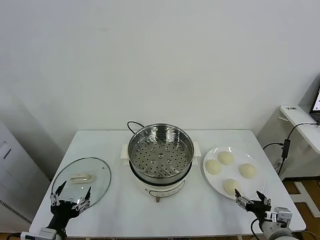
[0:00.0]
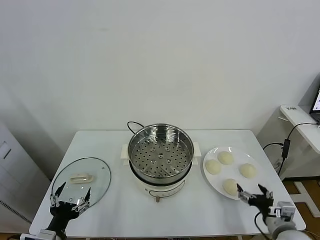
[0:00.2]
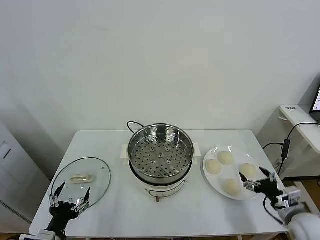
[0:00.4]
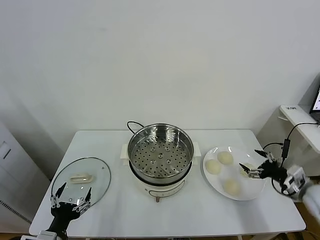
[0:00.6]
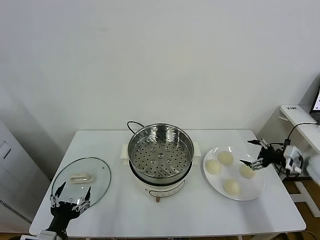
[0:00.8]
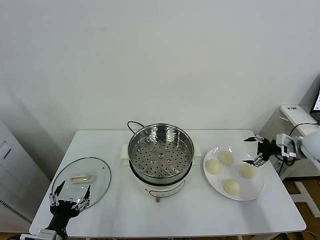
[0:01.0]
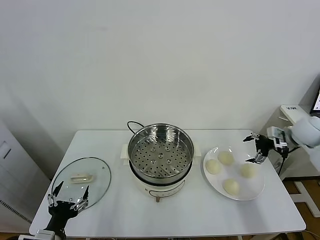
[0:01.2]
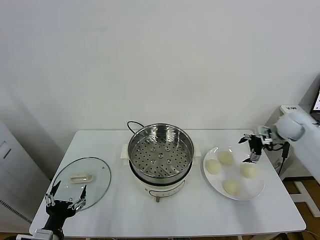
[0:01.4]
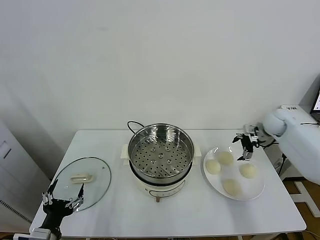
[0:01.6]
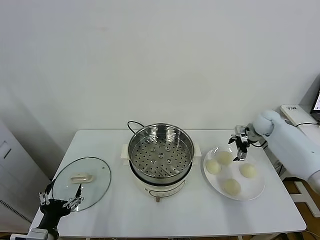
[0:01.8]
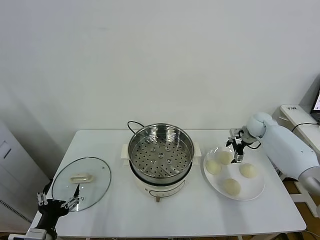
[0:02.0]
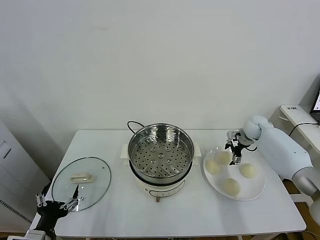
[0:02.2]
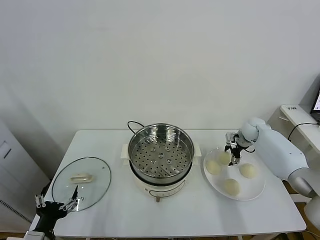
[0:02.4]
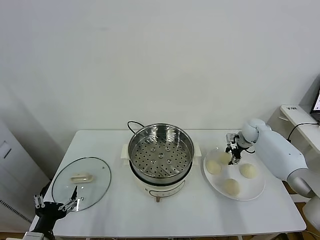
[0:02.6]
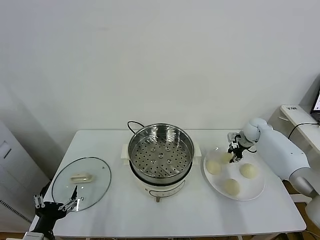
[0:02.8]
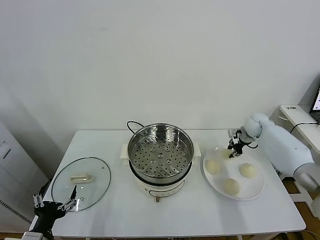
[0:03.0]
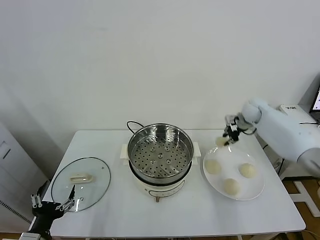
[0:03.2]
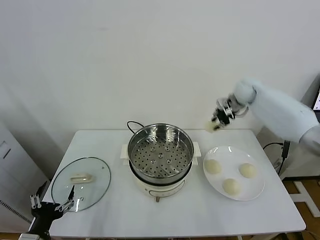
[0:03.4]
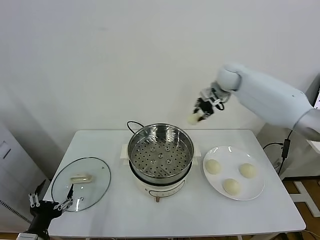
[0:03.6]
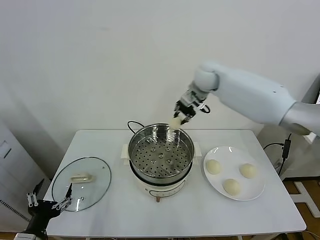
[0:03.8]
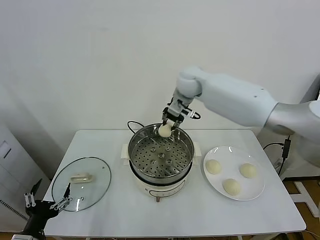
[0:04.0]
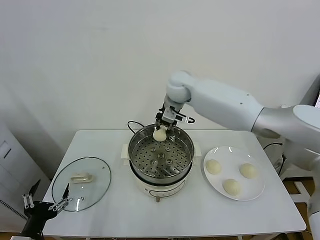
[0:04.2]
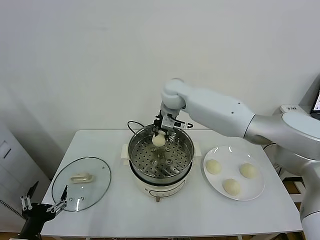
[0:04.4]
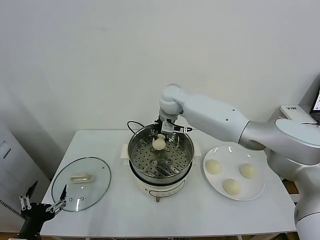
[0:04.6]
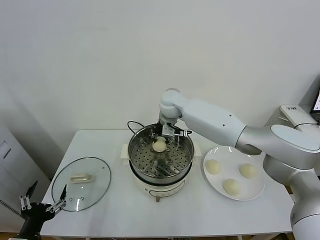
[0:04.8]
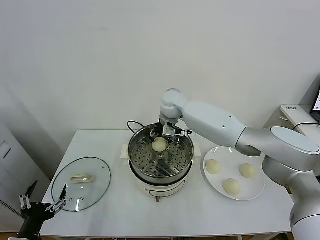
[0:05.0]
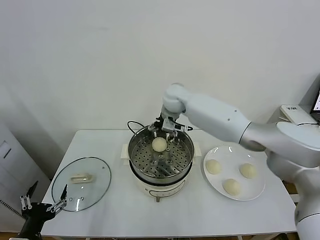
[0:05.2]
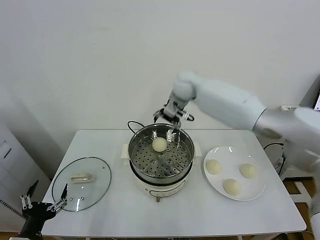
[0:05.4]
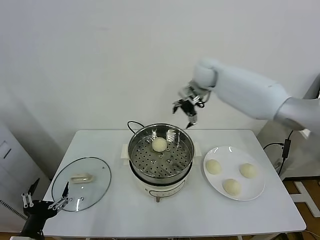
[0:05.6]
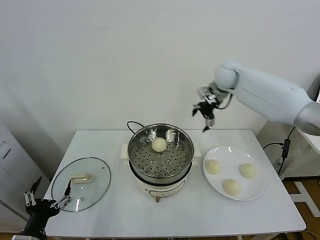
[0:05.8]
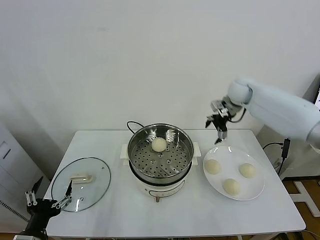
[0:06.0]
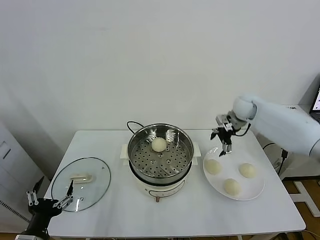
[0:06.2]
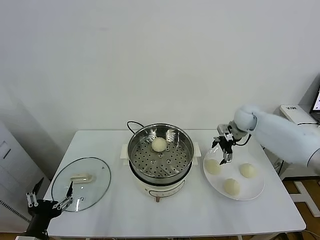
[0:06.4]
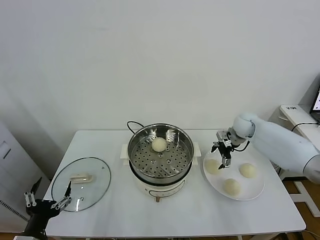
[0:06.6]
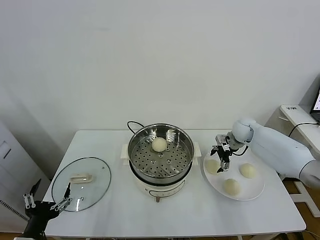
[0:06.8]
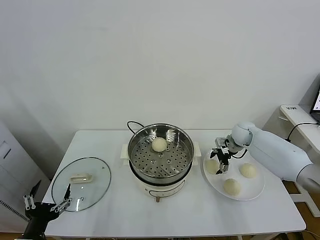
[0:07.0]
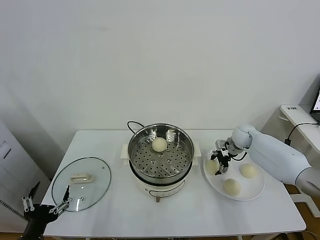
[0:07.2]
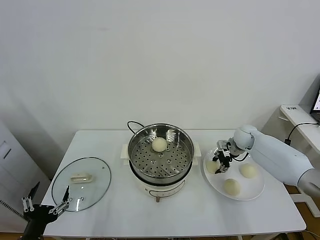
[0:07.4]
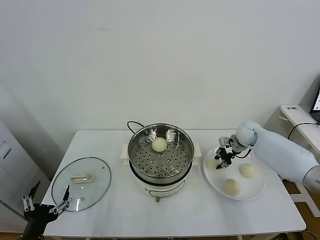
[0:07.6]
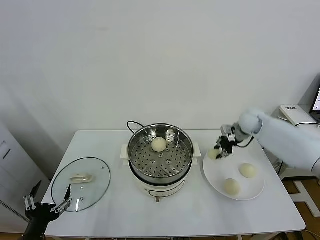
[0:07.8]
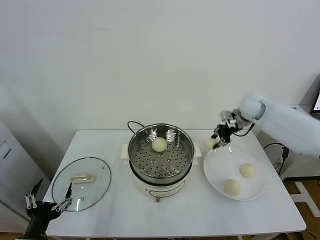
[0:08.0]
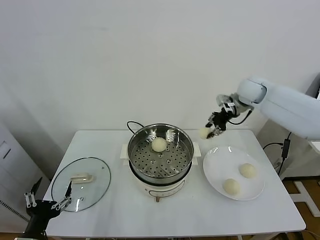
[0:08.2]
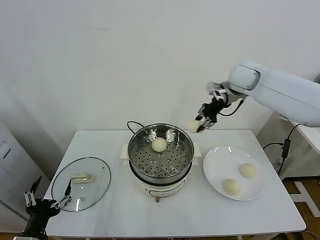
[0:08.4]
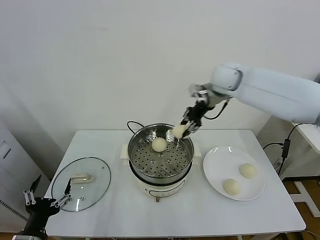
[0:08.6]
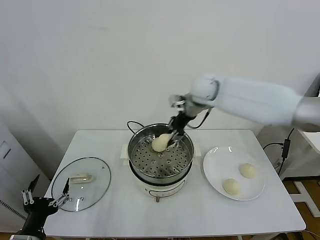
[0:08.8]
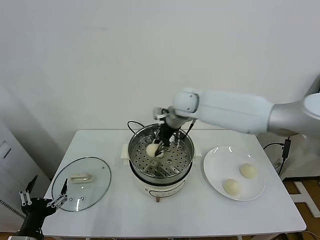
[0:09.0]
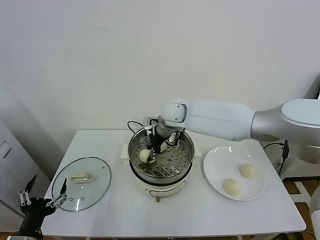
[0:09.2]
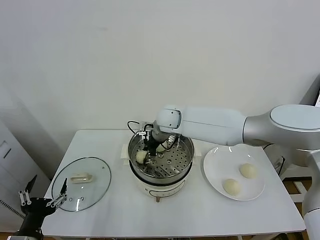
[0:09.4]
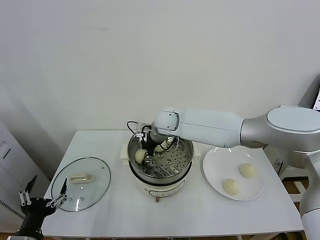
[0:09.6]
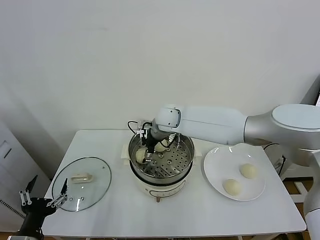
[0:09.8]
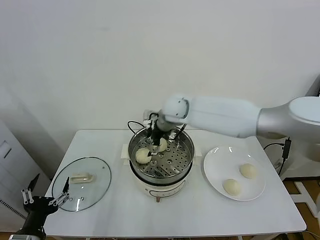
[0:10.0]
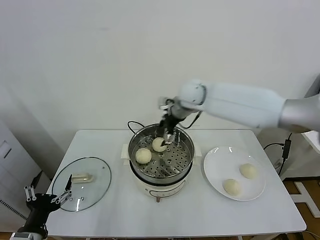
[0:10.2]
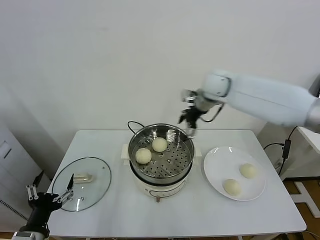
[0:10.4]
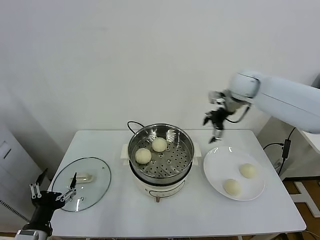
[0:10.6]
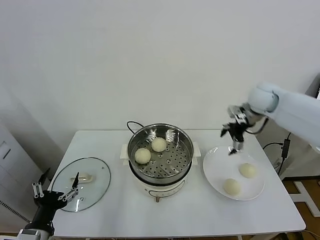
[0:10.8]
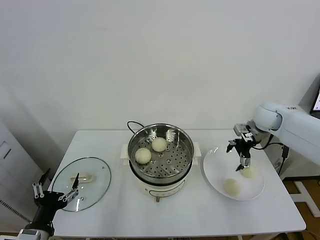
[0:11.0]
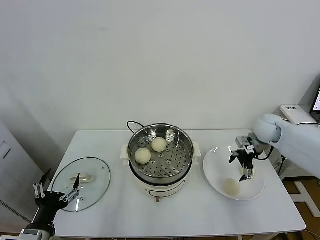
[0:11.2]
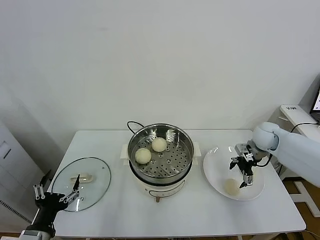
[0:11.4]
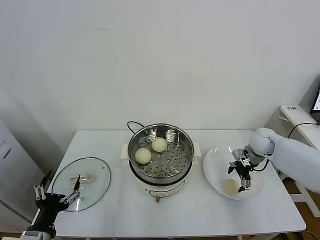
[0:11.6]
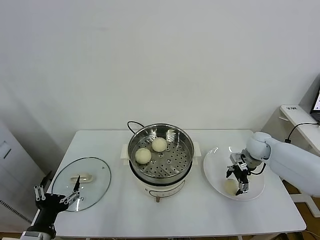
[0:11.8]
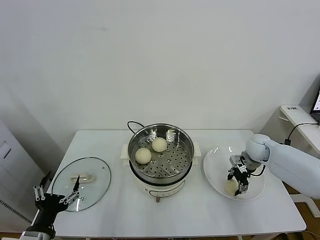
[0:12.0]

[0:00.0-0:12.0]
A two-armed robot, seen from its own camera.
Task of the whole recording: take steamed baozi put them in steamer.
Step, 0:00.0 to 0:02.6: Grasp the baozi in the plate with right gripper.
Step, 0:02.8 to 0:05.0: Place the baozi on the steamer with right gripper.
Step, 0:05.2 to 0:07.2: Grasp the baozi in the plate with right gripper.
Step, 0:07.4 to 0:09.8: Place the baozi on the steamer with right gripper.
Step, 0:10.0 to 0:12.0: Grasp the baozi in the plate with right gripper.
0:01.6 to 0:03.0: The right gripper moves some 5 cm, and closes up.
0:03.0 to 0:04.4: The right gripper moves to the left and upward, about 40 cm.
0:04.4 to 0:06.0: The right gripper travels to the right by approximately 25 cm, and opens its fingers.
0:06.0 to 0:07.6: The right gripper shifts about 20 cm downward, and closes.
0:07.6 to 0:09.0: The right gripper heads to the left and upward, covering about 30 cm.
0:09.0 to 0:10.4: The right gripper is displaced to the right and upward by some 10 cm, and opens.
0:10.4 to 0:12.0: The right gripper moves downward and to the right, roughly 30 cm.

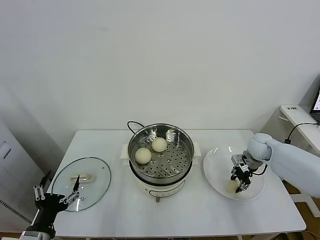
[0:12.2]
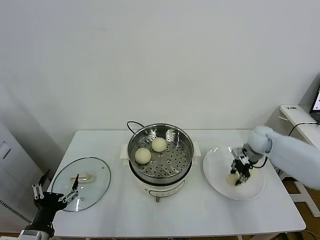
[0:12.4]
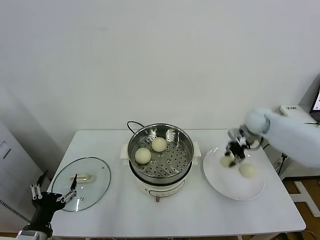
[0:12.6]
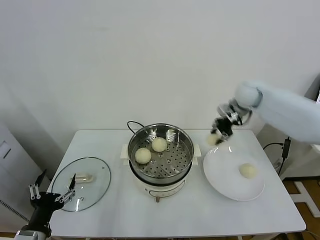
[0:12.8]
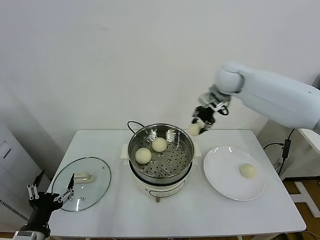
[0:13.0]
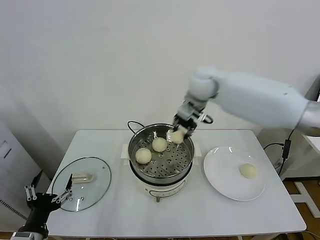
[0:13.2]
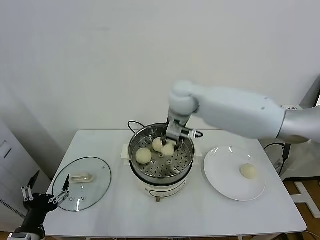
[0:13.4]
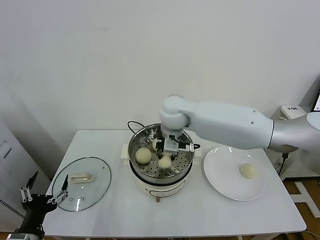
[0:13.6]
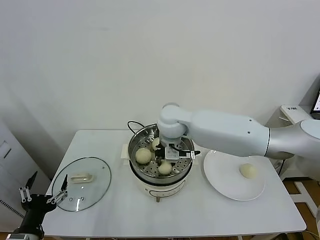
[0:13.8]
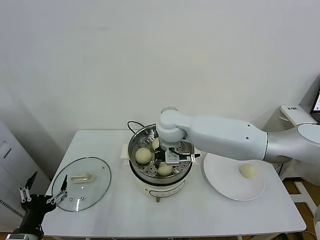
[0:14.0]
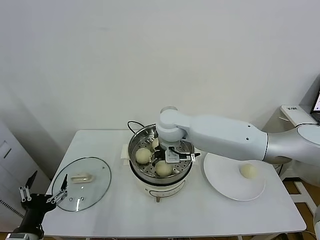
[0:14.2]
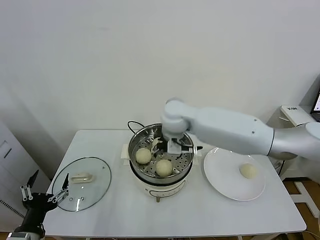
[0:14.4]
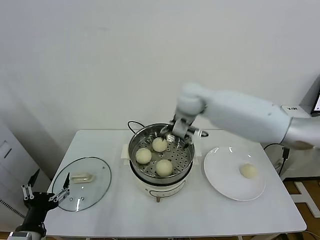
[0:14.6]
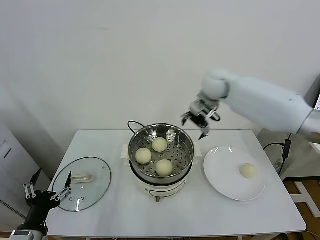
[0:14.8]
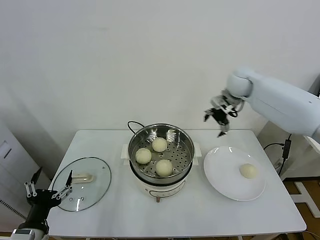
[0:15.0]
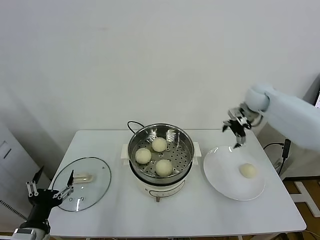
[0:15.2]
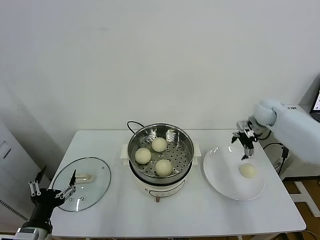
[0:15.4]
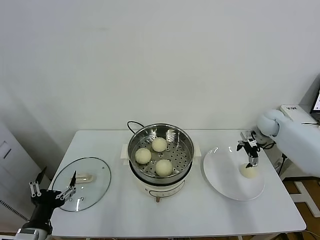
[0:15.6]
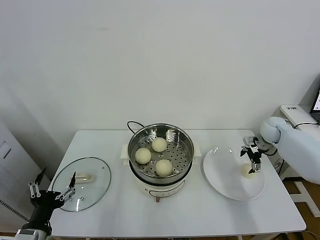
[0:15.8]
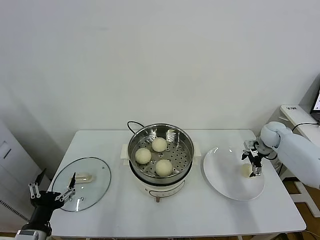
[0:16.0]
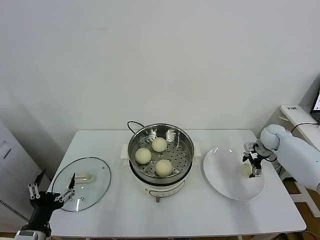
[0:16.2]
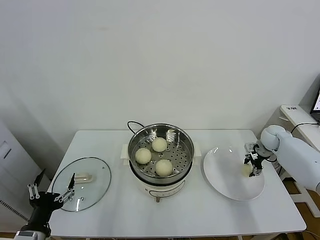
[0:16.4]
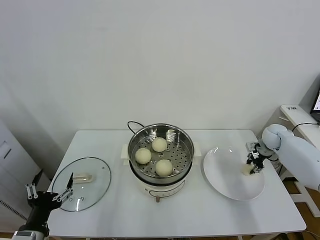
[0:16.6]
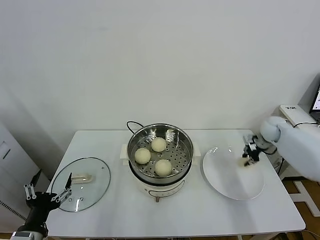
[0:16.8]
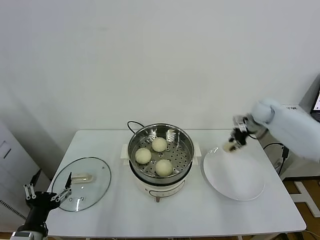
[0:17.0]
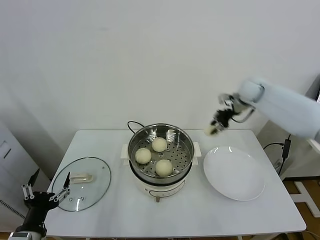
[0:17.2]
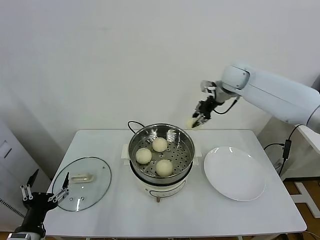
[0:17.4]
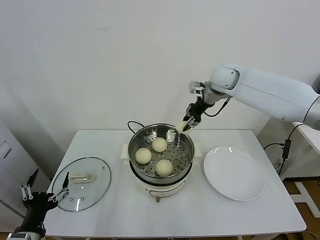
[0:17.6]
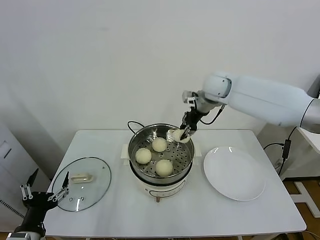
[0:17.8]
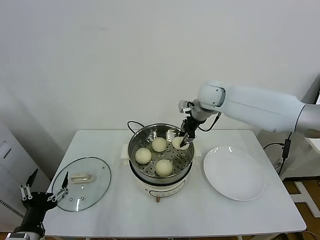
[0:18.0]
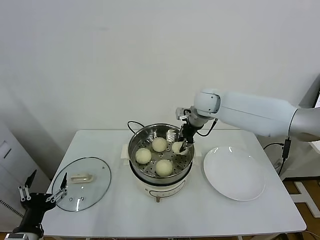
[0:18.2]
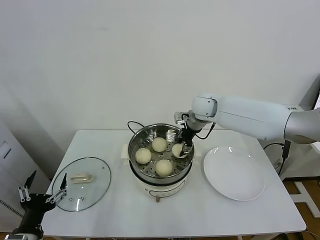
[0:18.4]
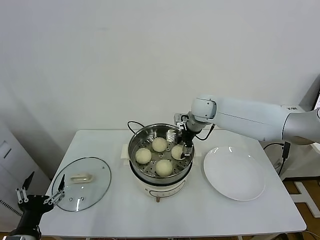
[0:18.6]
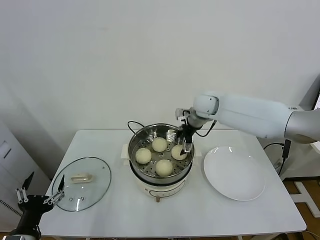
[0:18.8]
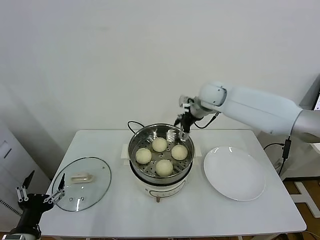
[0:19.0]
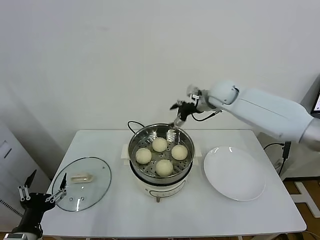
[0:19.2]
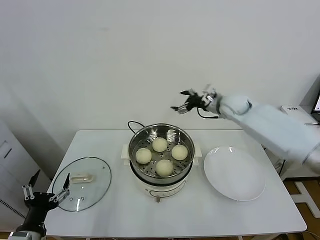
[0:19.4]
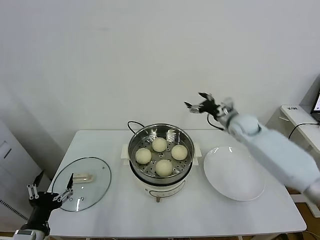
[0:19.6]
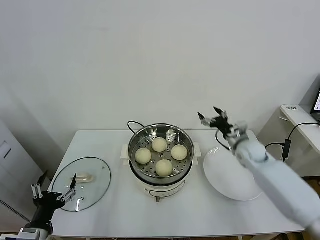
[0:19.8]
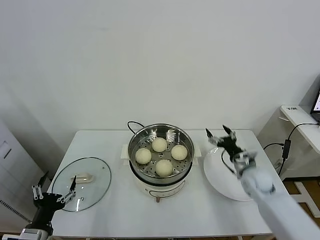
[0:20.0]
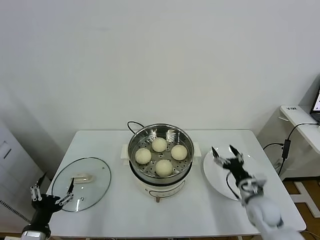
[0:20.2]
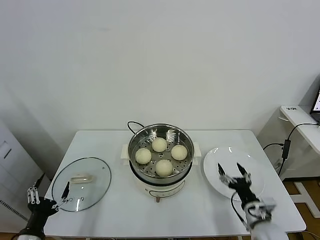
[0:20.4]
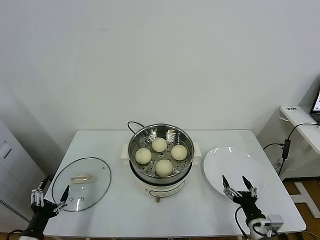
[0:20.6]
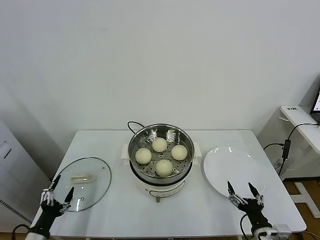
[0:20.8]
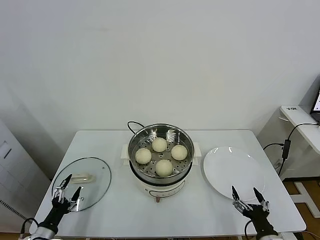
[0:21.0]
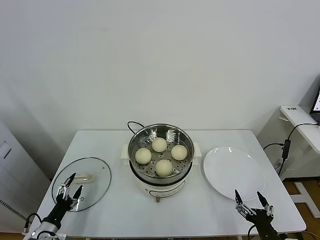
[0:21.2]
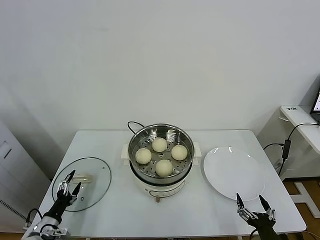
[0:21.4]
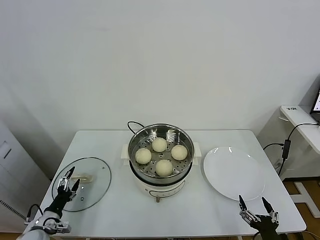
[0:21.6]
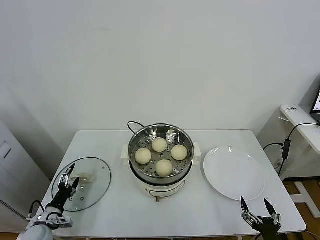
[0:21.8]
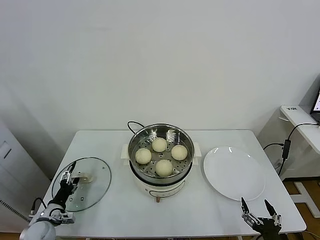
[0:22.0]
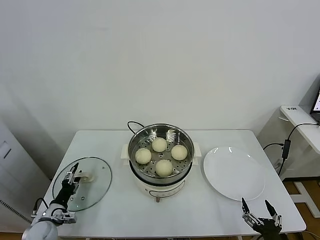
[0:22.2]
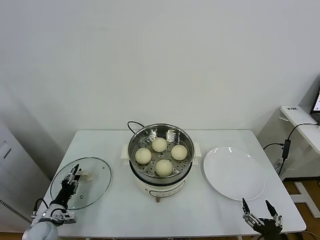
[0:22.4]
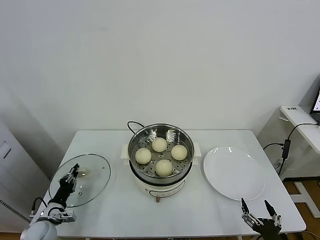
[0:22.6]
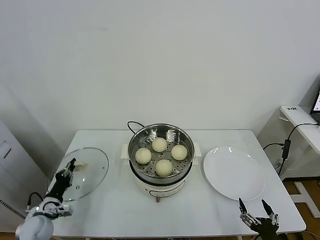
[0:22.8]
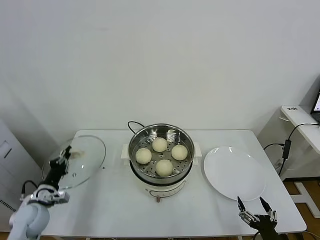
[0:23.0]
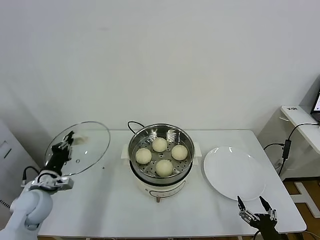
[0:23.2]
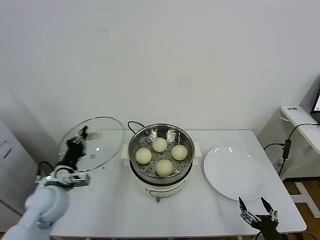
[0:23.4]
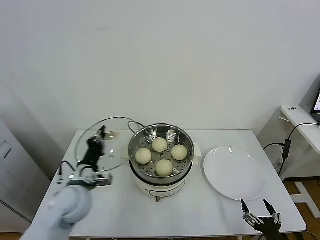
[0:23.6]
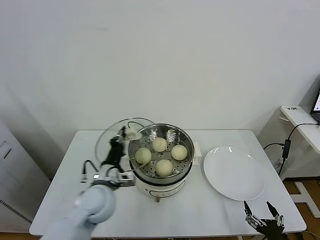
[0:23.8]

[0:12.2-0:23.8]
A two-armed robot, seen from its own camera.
Task of the whole recording: take steamed baozi put them in steamer.
Step, 0:12.2 to 0:14.2: Place the baozi on the steamer with right gripper.
Step, 0:14.4 to 0:16.4: Grasp the baozi in the plate with right gripper.
Step, 0:16.6 to 0:18.6: Place the baozi on the steamer with right gripper.
Step, 0:19.0 to 0:22.8: Grasp the pot lid with left gripper.
0:12.2 to 0:13.6: The right gripper is displaced to the left and upward by about 40 cm.
0:13.6 to 0:15.0: The right gripper goes about 25 cm to the right and forward, and opens its fingers.
0:15.0 to 0:16.6: The right gripper shifts roughly 30 cm downward and to the right, and closes its fingers.
0:16.6 to 0:18.0: The right gripper moves to the left and upward, some 35 cm.
0:18.0 to 0:19.4: The right gripper is displaced to the right by some 10 cm, and opens up.
0:19.4 to 0:21.0: The left gripper travels downward and to the left by some 15 cm; the right gripper goes roughly 50 cm backward and downward.
0:21.0 to 0:22.4: The left gripper heads forward, covering approximately 10 cm, and closes up, while the right gripper shifts roughly 5 cm backward.
0:22.4 to 0:23.8: The left gripper shifts approximately 30 cm to the right and upward, and closes its fingers.
